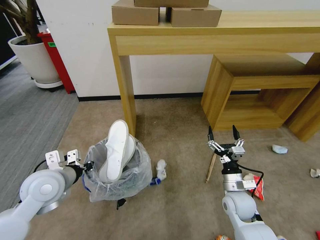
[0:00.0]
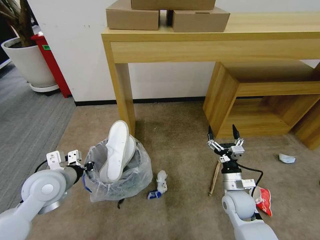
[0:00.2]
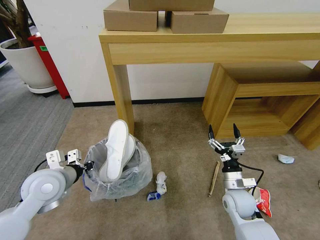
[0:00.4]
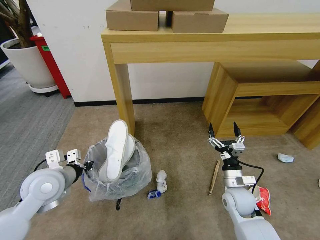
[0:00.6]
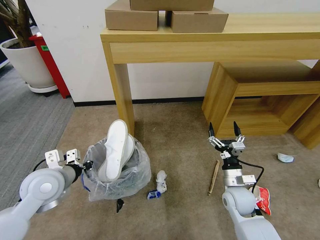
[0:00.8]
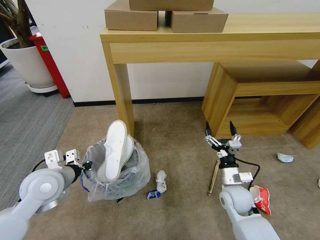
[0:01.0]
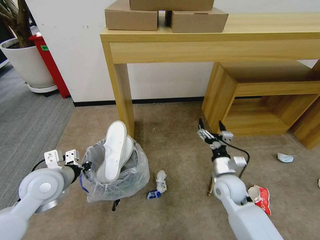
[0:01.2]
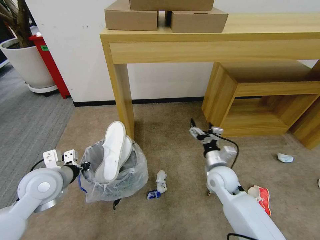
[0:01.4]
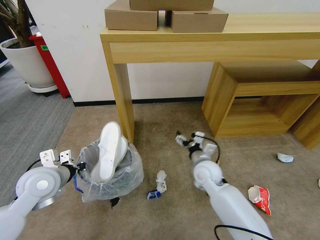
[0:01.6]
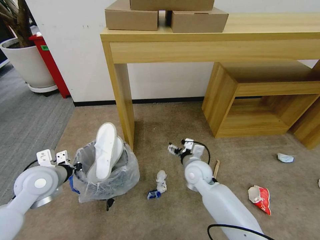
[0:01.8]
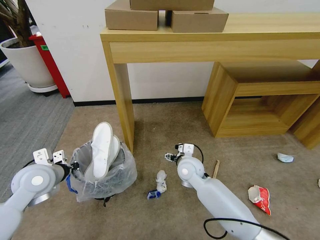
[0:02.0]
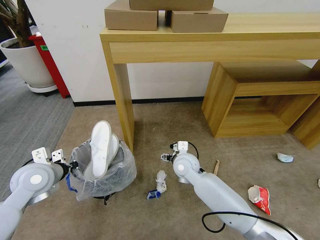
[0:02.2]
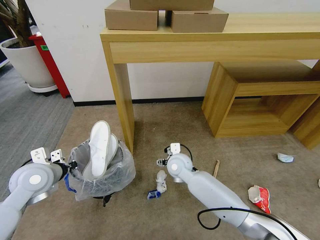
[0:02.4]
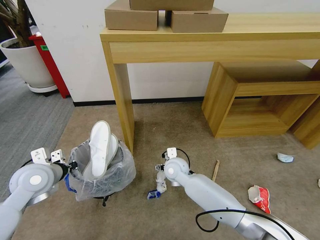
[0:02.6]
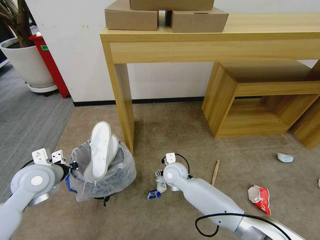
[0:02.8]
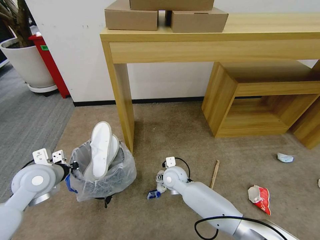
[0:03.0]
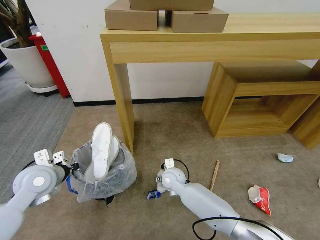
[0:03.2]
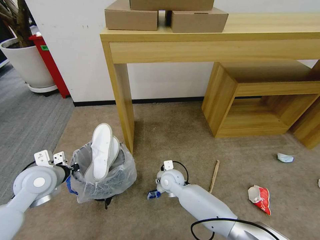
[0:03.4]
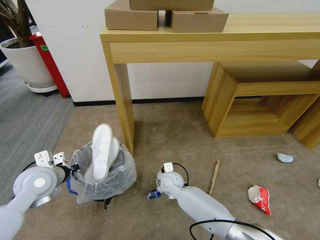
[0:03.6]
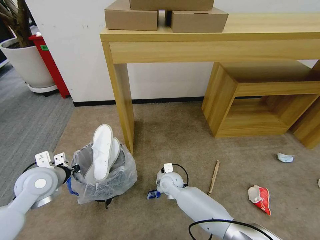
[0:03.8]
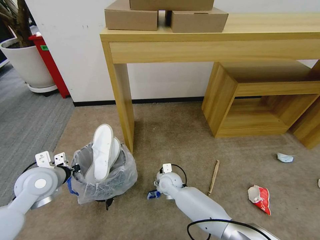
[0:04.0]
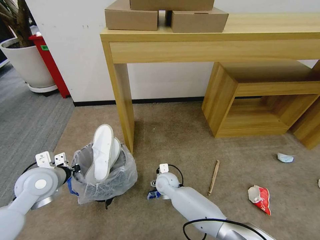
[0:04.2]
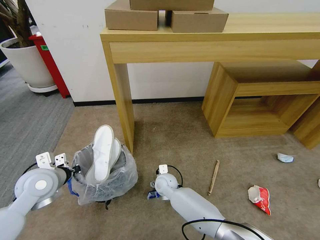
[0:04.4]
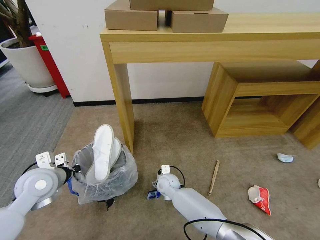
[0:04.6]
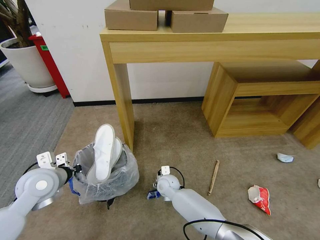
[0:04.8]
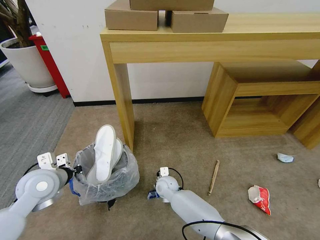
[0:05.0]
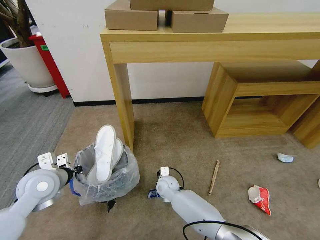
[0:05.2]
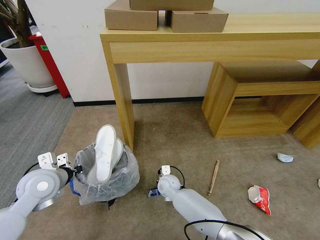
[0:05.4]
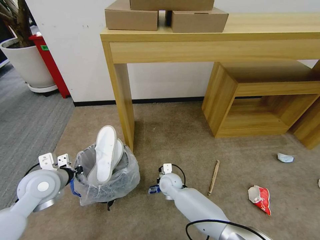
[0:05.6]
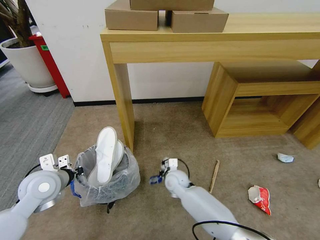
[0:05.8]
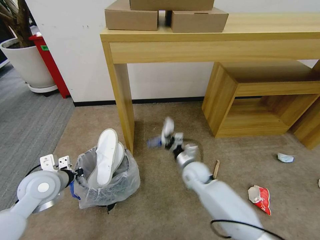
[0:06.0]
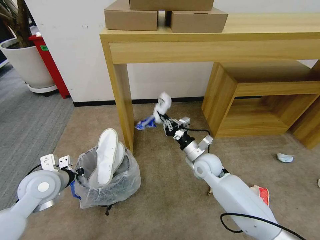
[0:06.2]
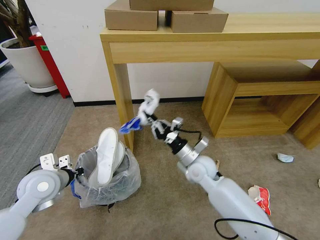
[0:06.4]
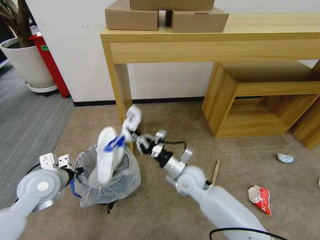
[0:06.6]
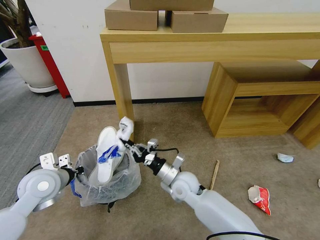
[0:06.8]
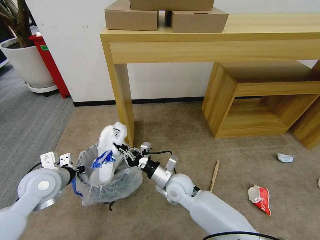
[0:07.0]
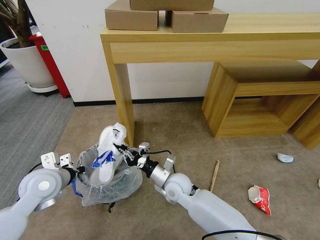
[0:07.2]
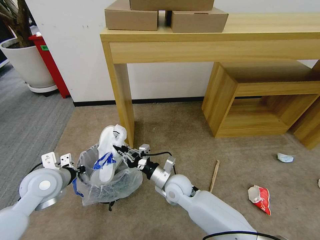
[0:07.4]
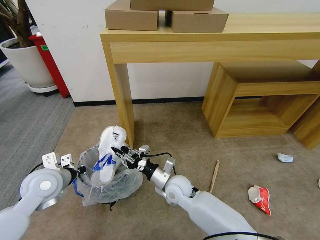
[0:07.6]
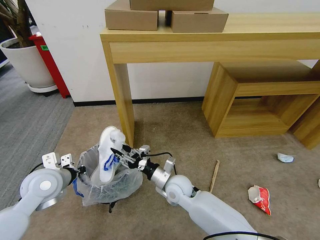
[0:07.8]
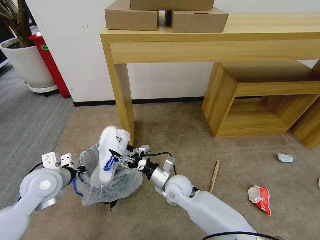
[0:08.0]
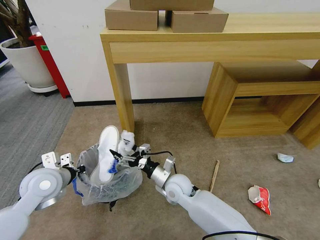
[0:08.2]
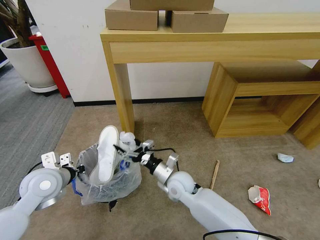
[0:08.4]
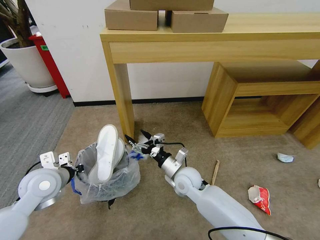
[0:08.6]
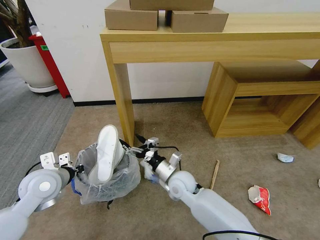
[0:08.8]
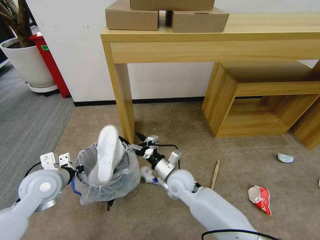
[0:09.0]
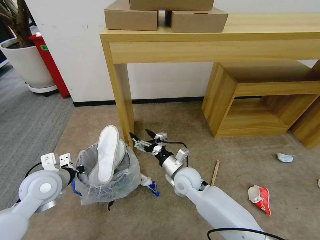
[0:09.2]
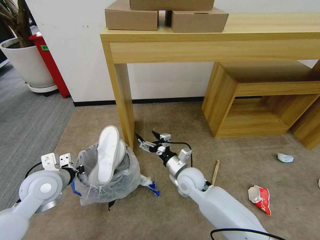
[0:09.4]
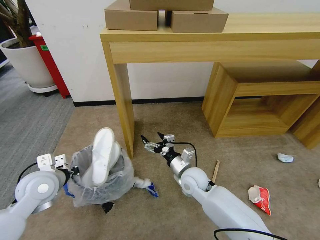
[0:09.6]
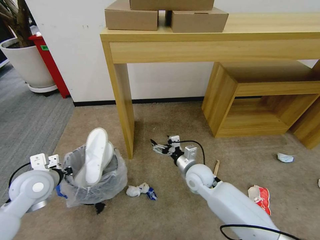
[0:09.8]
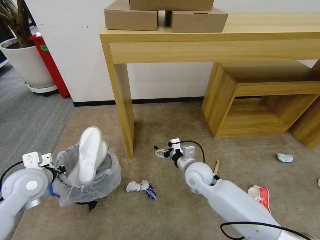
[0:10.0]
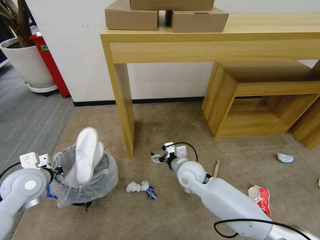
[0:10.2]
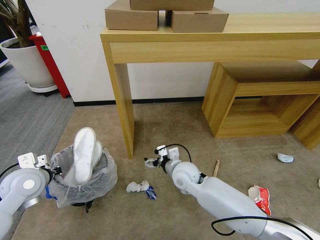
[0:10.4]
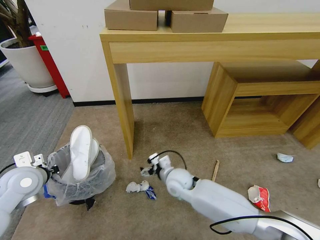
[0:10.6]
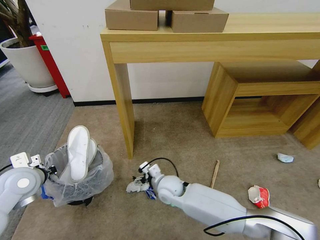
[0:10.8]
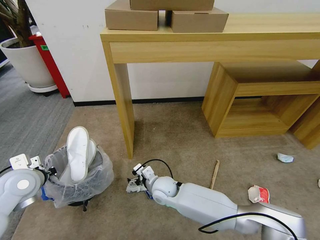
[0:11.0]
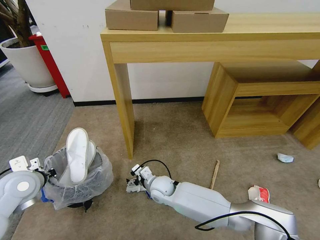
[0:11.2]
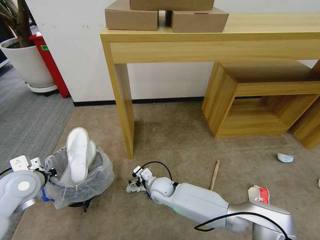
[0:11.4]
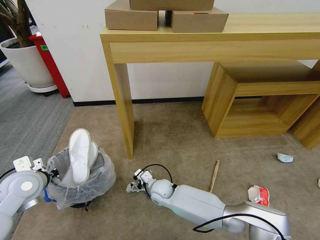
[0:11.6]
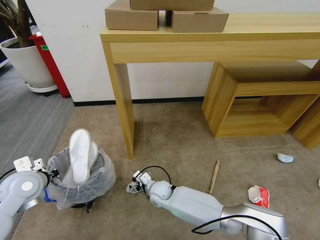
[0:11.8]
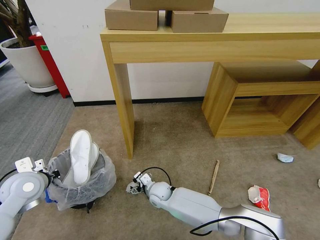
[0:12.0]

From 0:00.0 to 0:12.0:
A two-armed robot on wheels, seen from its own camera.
Task of the whole recording: Pick up the trash bin and place the garbage on the floor into it.
From 0:00.0 to 0:01.6: The right gripper goes approximately 15 cm to the left, forward and upward.
From 0:01.6 to 0:03.0: The right gripper travels to the left and downward by some 15 cm.
From 0:03.0 to 0:04.4: The right gripper shifts roughly 5 cm downward.
From 0:04.4 to 0:06.0: The right gripper moves to the right and upward, approximately 15 cm, and closes up.
From 0:06.0 to 0:07.6: The right gripper travels to the left and backward by about 10 cm.
From 0:07.6 to 0:09.0: The right gripper opens.
From 0:10.4 to 0:12.0: The right gripper is displaced downward and to the left by about 20 cm.

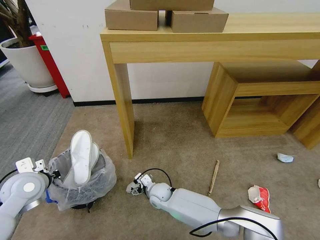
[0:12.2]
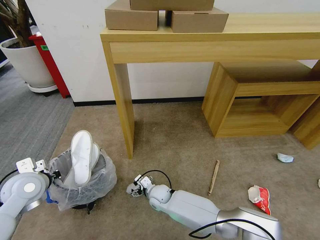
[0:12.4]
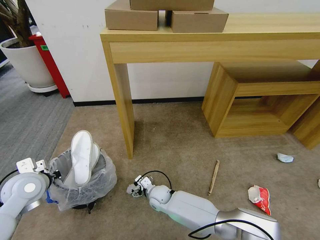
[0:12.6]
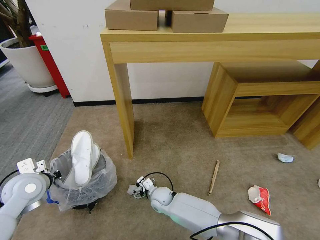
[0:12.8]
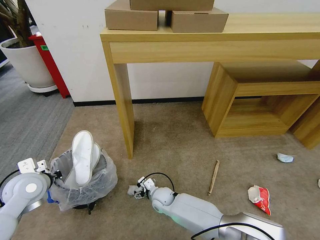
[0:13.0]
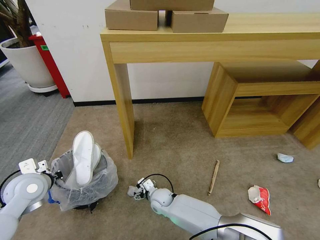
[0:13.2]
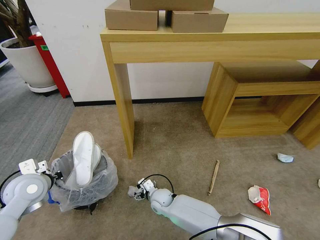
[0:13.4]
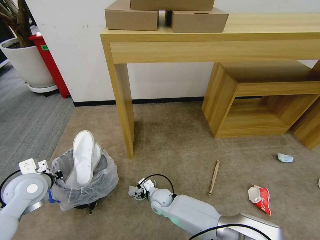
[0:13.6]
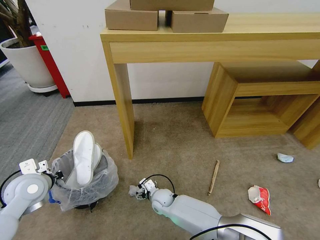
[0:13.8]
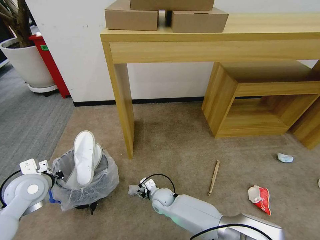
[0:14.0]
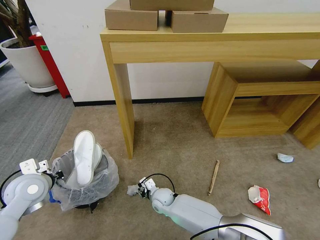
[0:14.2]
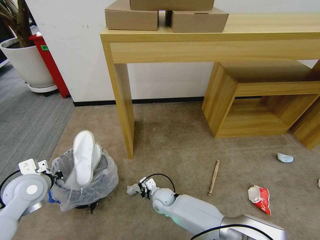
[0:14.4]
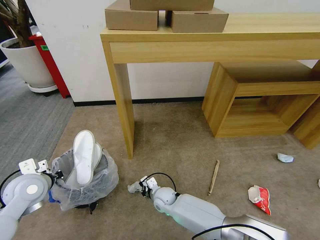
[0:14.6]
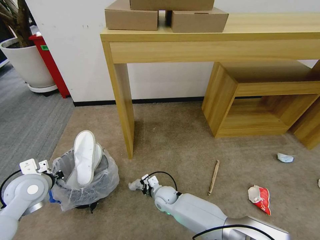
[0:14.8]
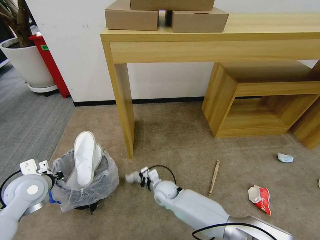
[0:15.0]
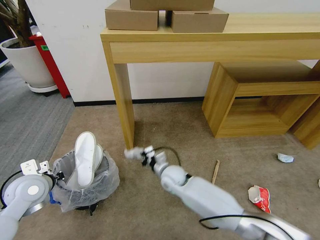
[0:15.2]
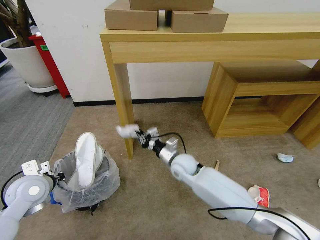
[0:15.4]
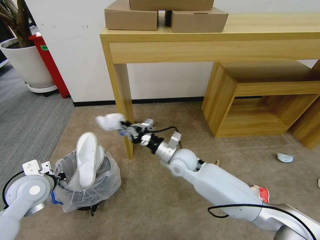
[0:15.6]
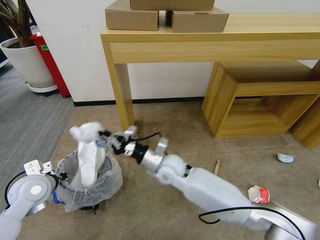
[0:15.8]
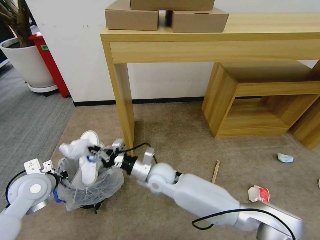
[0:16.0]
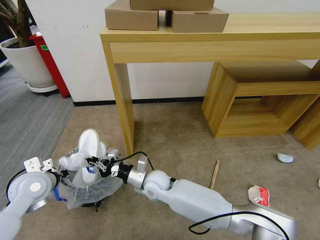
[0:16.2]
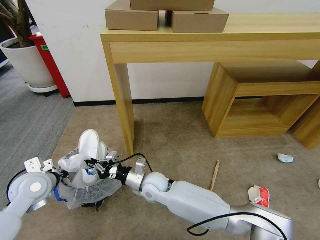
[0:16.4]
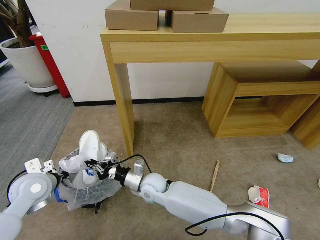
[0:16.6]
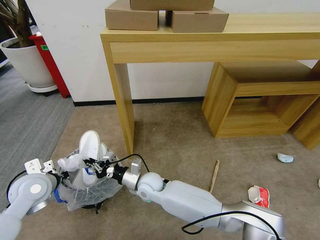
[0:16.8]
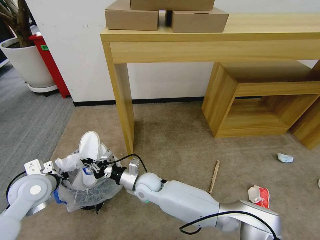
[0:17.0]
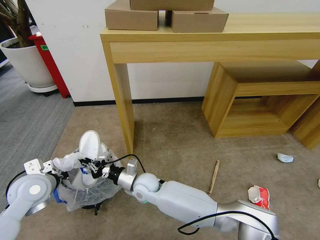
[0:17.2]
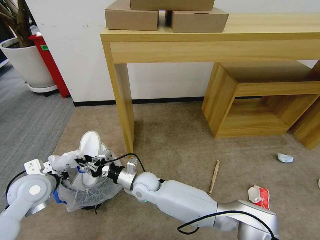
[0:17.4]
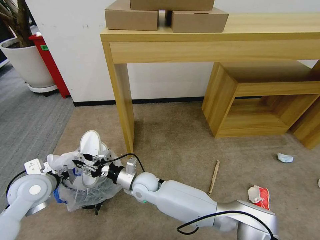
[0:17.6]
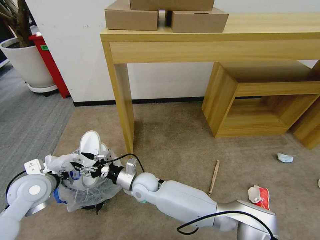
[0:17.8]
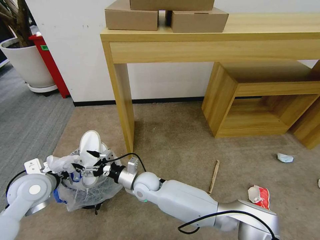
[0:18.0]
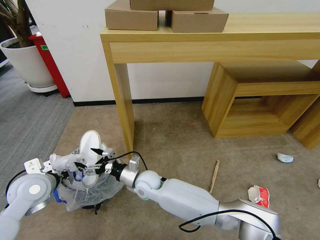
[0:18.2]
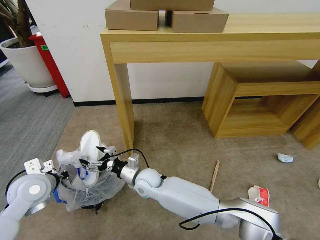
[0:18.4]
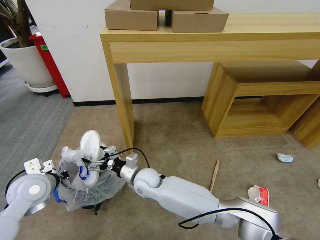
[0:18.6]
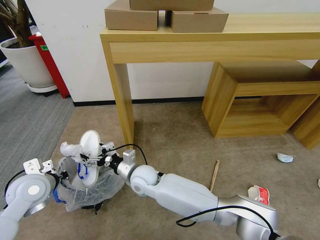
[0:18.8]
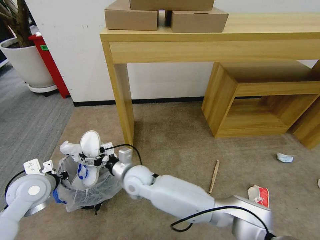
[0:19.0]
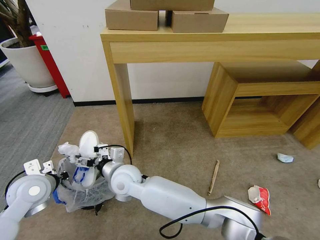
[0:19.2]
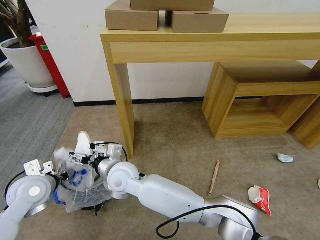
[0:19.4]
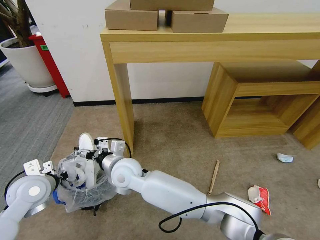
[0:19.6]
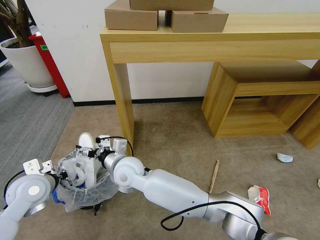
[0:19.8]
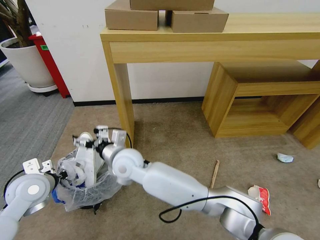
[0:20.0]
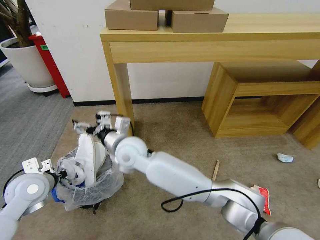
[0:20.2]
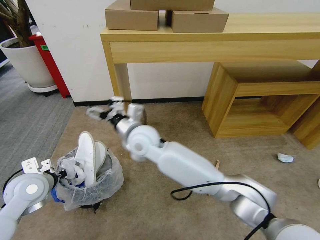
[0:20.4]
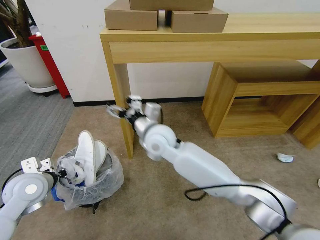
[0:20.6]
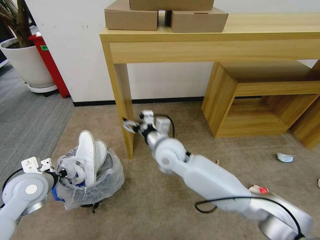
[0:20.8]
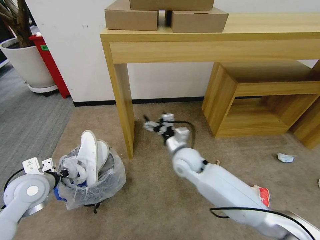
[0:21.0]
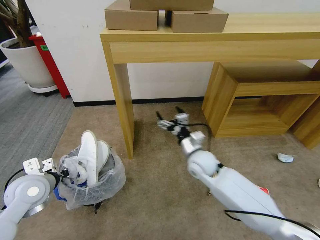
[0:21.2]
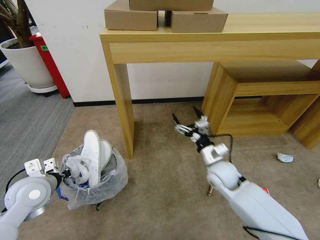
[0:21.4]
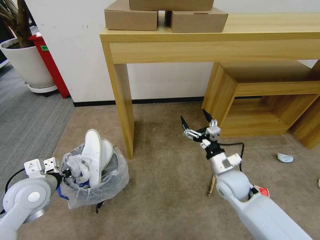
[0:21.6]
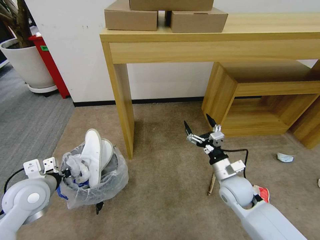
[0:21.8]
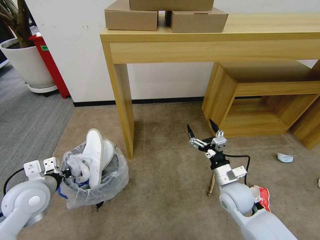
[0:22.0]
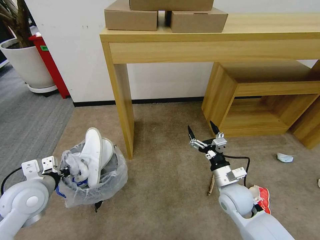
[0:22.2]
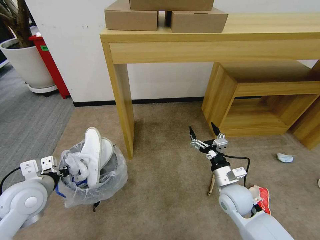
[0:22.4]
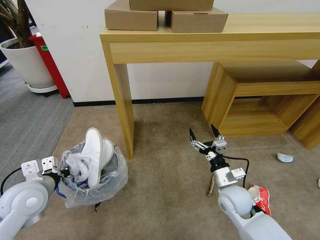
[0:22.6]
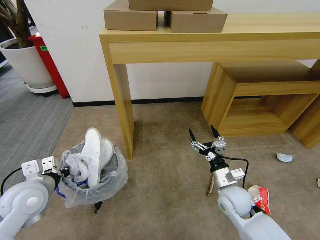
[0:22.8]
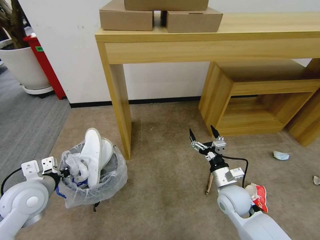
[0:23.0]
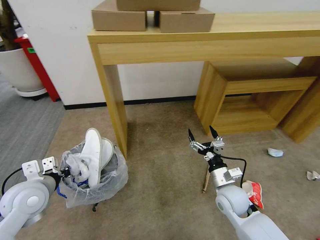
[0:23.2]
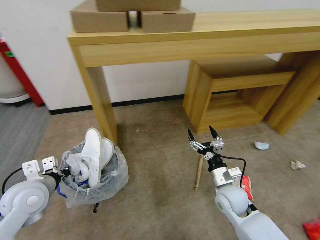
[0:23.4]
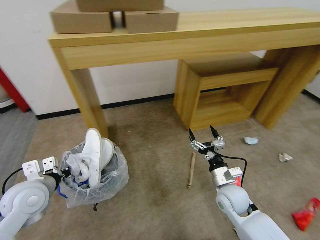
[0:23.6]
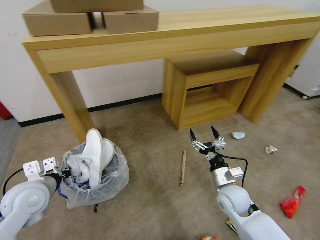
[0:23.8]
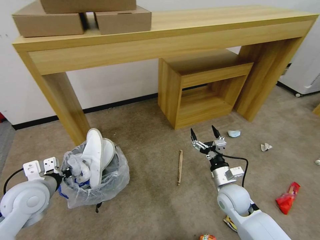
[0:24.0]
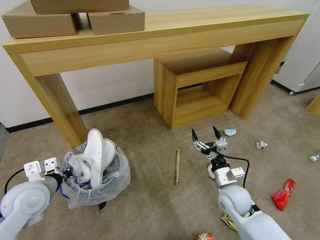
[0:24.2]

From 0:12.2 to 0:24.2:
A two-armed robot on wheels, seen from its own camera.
Task of the whole recording: Pick up the trash bin and place the garbage on the floor into it.
From 0:12.2 to 0:13.8: There are only small adjustments of the grippers.
From 0:13.8 to 0:15.2: The right gripper is displaced upward by some 10 cm, and closes up.
From 0:15.2 to 0:16.6: The right gripper goes approximately 10 cm to the left.
From 0:16.6 to 0:18.2: The right gripper opens up.
From 0:18.2 to 0:19.8: The right gripper travels upward and to the left by about 10 cm.
From 0:19.8 to 0:21.2: The right gripper moves to the right, some 20 cm.
From 0:21.2 to 0:22.6: The right gripper shifts roughly 15 cm to the right, backward and downward.
